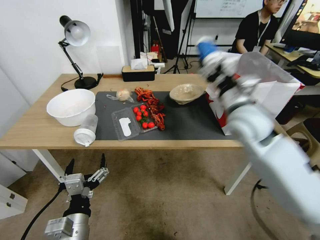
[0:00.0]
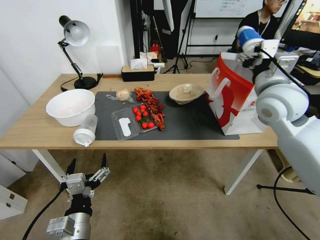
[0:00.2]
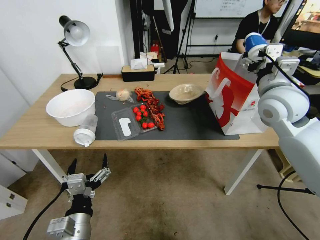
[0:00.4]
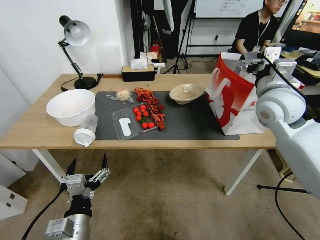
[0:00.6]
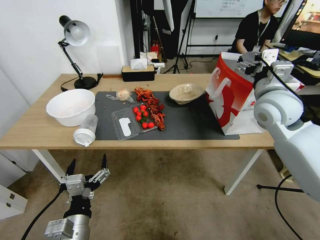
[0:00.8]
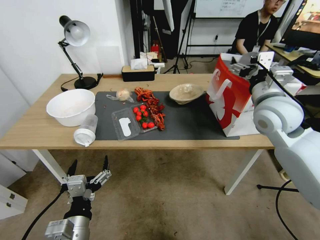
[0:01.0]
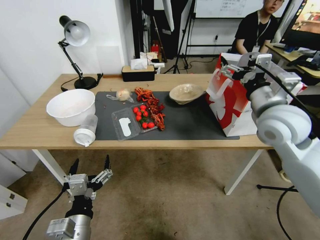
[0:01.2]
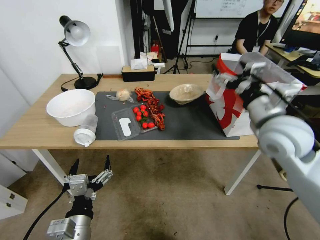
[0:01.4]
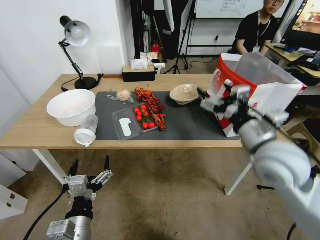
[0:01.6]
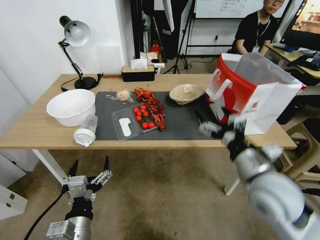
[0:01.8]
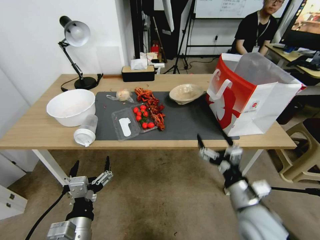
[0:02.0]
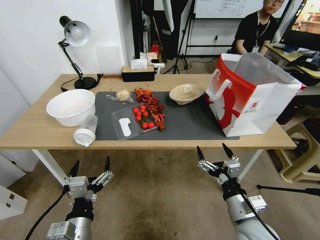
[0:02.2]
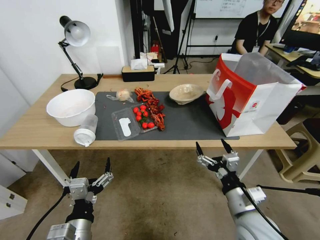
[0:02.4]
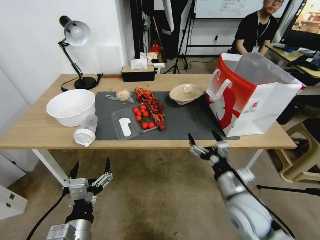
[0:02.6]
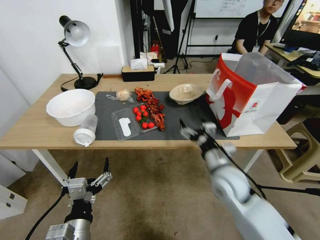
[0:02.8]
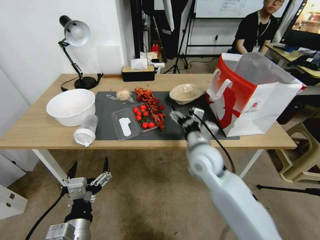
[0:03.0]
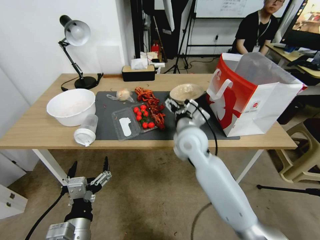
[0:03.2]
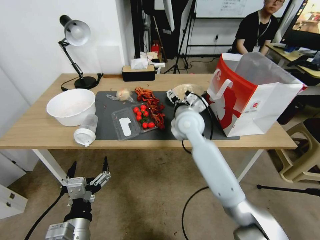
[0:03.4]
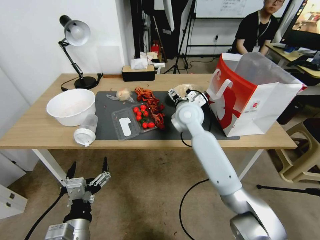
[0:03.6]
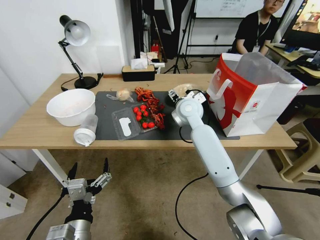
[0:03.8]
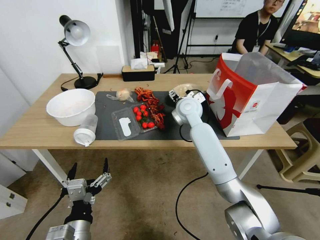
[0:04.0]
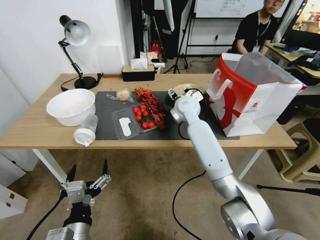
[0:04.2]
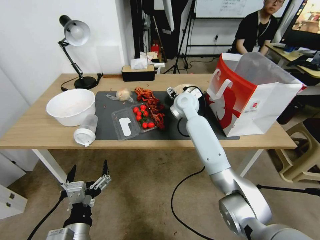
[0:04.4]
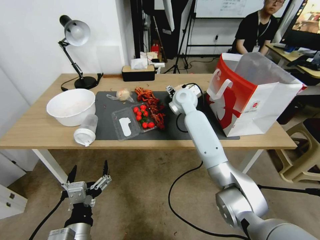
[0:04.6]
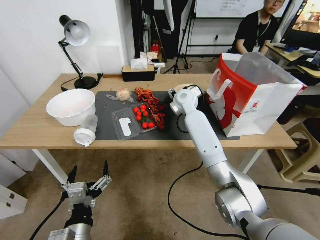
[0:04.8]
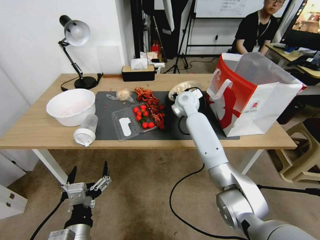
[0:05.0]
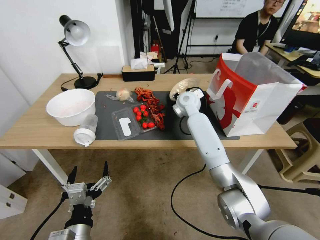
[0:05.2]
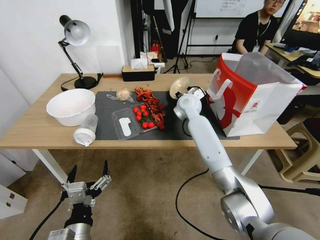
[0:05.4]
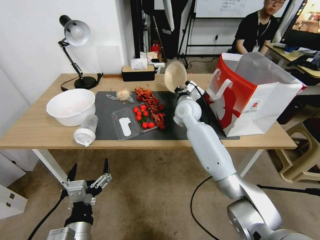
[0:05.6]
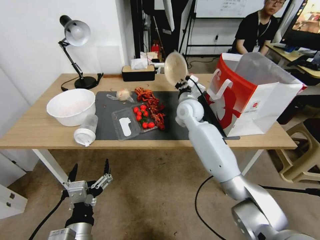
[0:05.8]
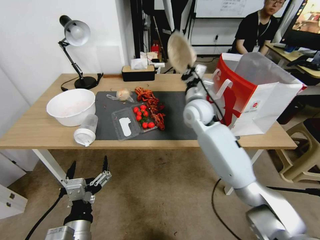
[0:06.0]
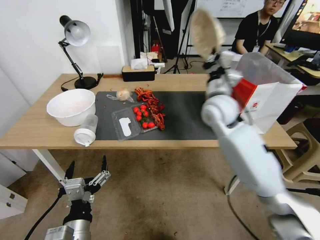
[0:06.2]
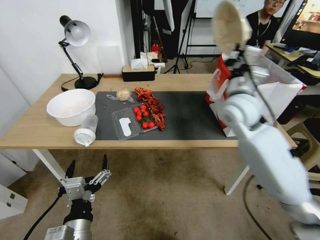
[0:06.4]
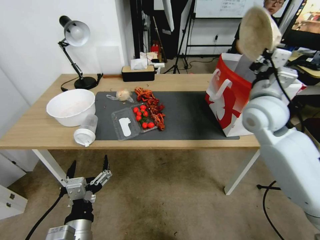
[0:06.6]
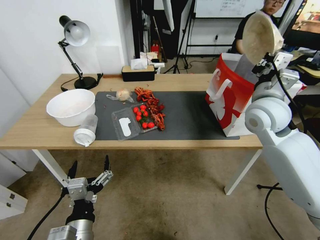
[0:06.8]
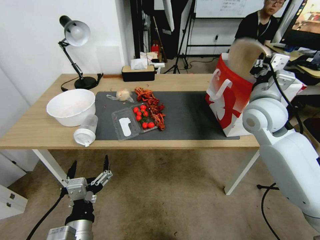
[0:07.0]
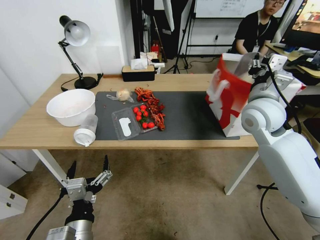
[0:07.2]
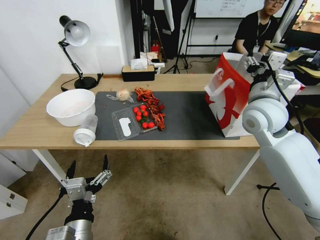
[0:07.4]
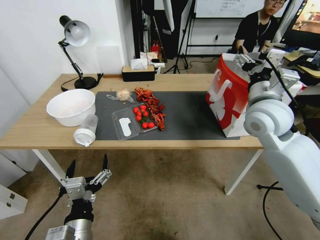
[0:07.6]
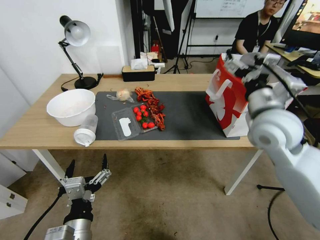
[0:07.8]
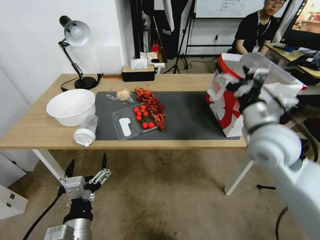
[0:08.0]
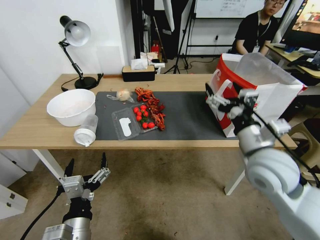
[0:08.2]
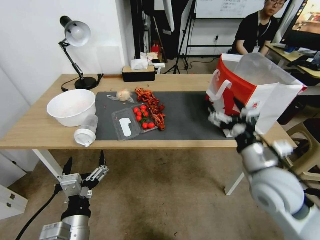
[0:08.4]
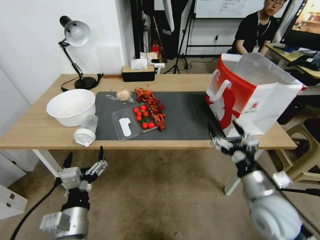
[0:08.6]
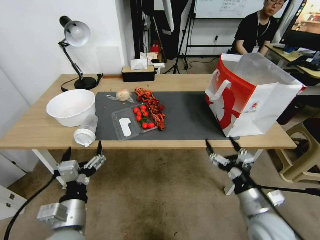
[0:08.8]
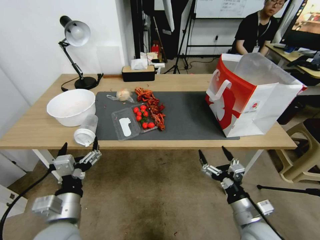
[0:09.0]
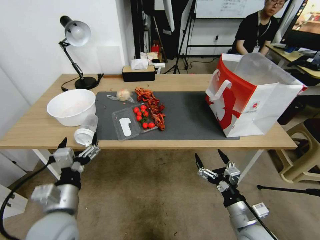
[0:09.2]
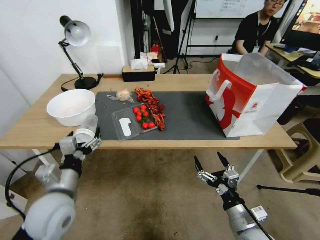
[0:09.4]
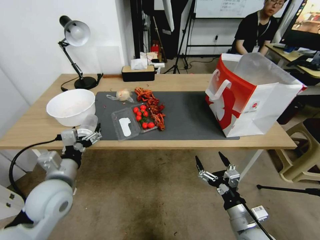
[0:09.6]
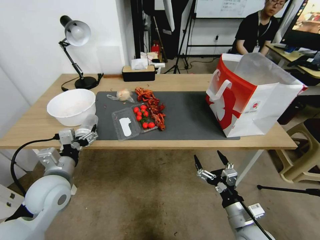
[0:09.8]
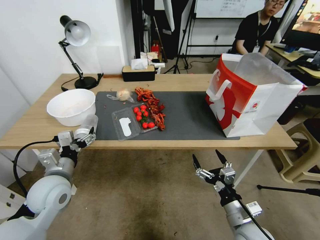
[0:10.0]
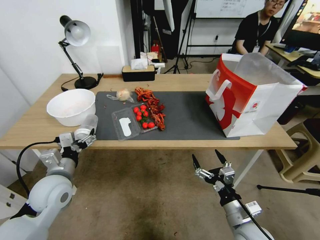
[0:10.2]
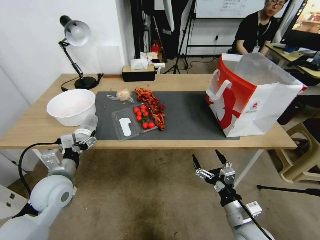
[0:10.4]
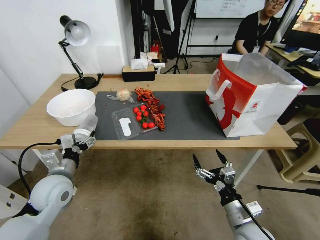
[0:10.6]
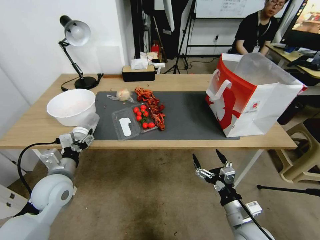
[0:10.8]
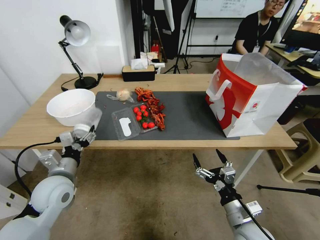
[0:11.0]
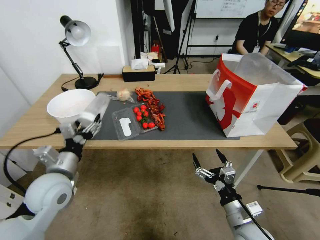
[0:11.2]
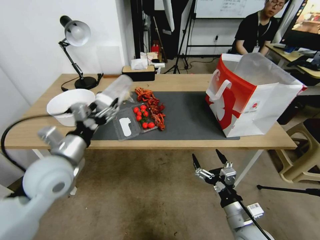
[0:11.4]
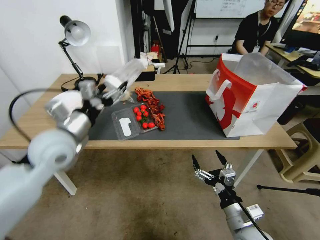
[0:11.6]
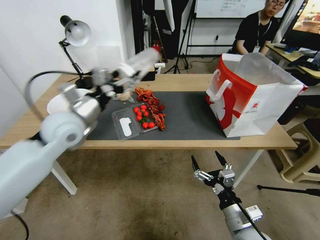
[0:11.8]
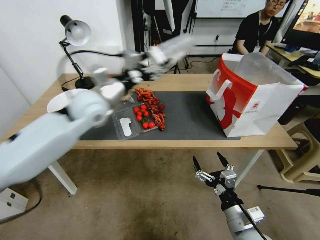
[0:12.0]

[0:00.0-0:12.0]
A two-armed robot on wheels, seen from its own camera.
0:00.0 to 0:01.6: The right gripper heads backward, covering approximately 10 cm.
0:01.6 to 0:03.0: The right gripper moves to the left and downward, about 20 cm.
0:03.0 to 0:04.4: The right gripper shifts about 20 cm forward.
0:04.4 to 0:06.0: The right gripper shifts by roughly 5 cm, and closes.
0:06.0 to 0:07.6: The right gripper travels to the right, backward and upward by approximately 20 cm, and opens up.
0:07.6 to 0:09.0: The right gripper goes roughly 35 cm downward and backward. The left gripper heads forward, covering roughly 5 cm.
0:09.0 to 0:10.4: The left gripper moves forward and to the left, about 15 cm.
0:10.4 to 0:12.0: The left gripper goes about 25 cm upward, forward and to the right.

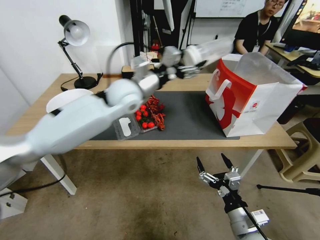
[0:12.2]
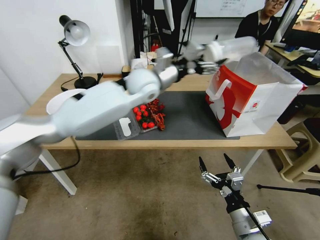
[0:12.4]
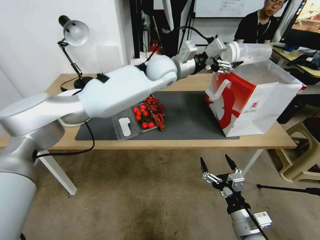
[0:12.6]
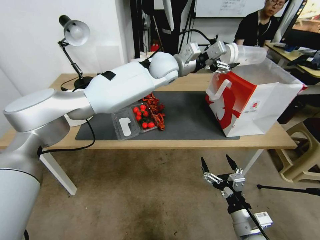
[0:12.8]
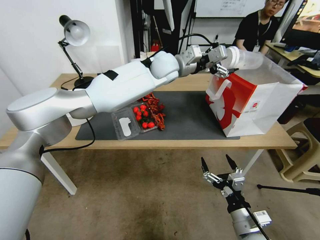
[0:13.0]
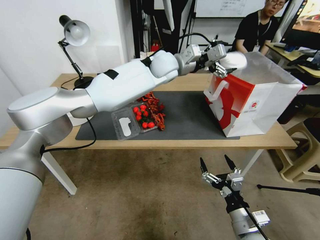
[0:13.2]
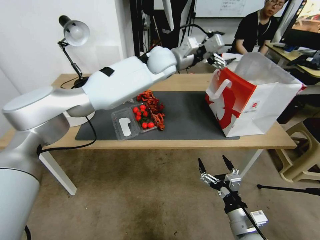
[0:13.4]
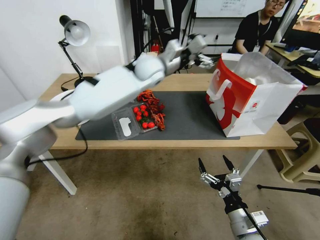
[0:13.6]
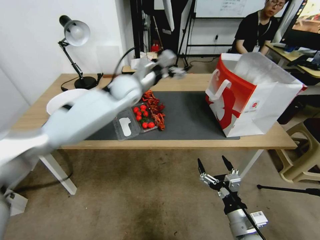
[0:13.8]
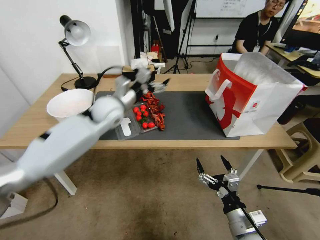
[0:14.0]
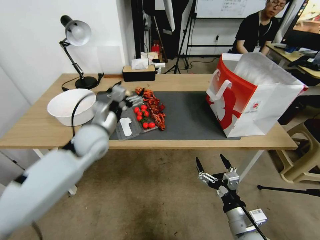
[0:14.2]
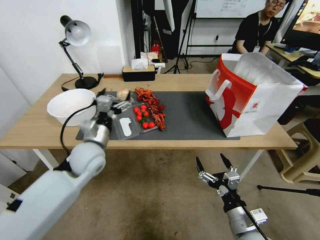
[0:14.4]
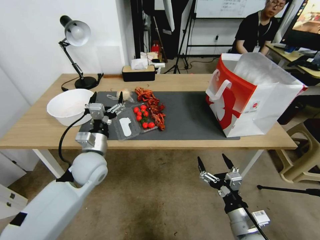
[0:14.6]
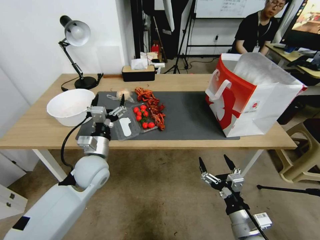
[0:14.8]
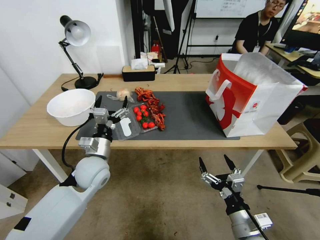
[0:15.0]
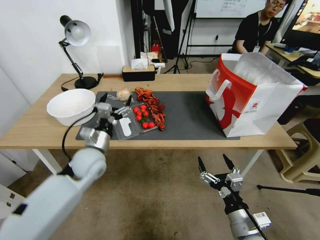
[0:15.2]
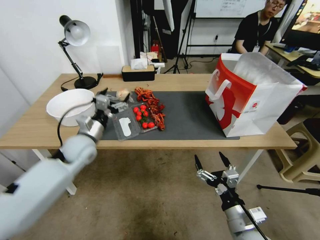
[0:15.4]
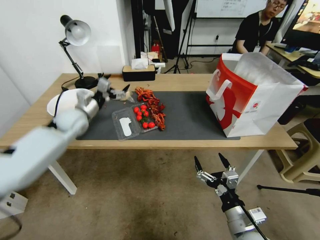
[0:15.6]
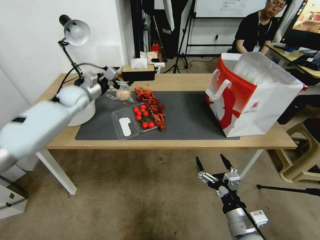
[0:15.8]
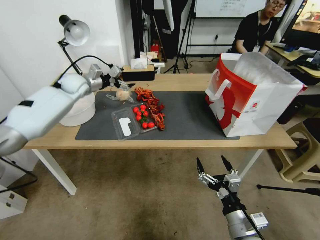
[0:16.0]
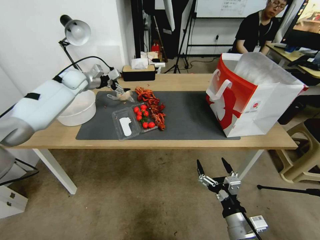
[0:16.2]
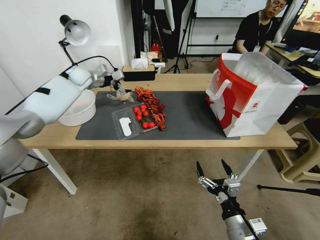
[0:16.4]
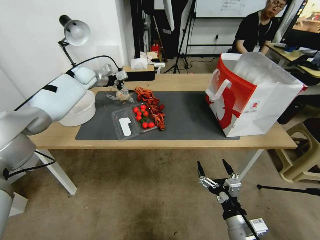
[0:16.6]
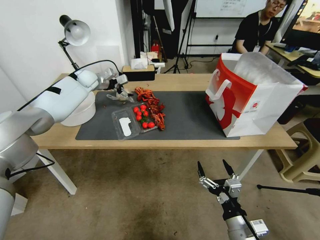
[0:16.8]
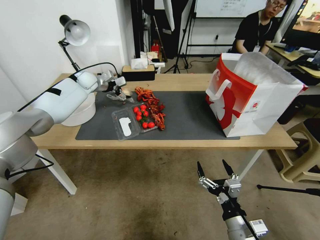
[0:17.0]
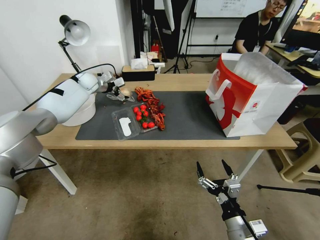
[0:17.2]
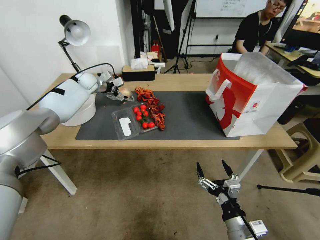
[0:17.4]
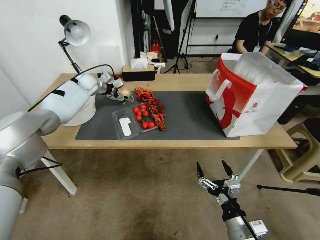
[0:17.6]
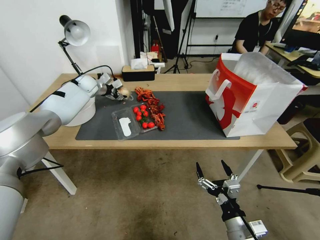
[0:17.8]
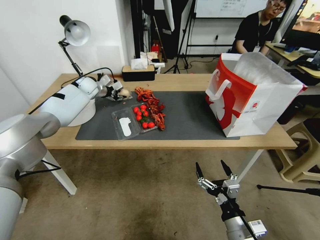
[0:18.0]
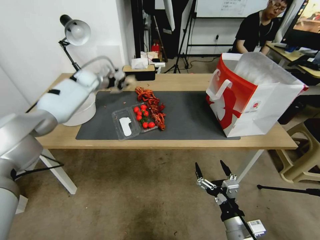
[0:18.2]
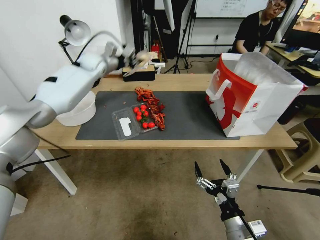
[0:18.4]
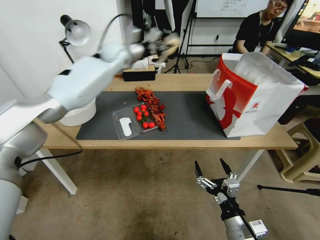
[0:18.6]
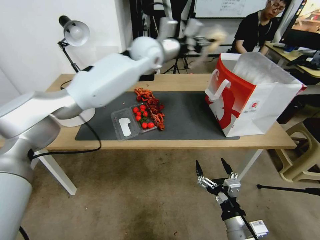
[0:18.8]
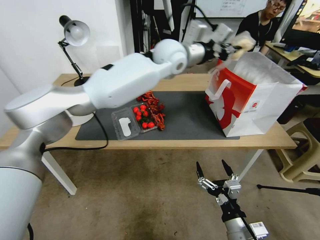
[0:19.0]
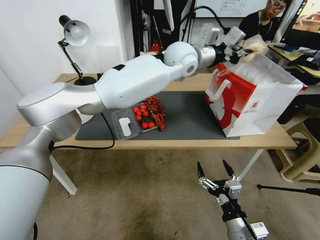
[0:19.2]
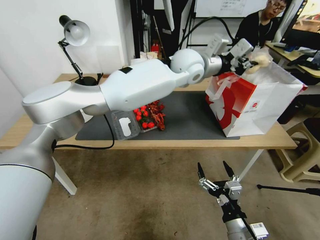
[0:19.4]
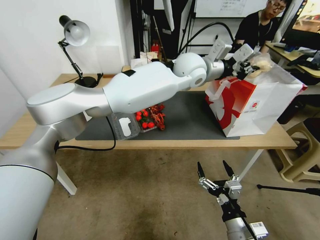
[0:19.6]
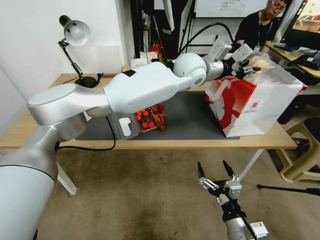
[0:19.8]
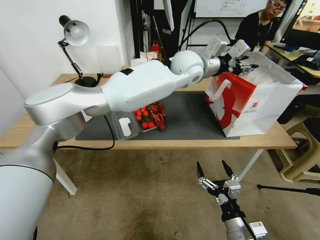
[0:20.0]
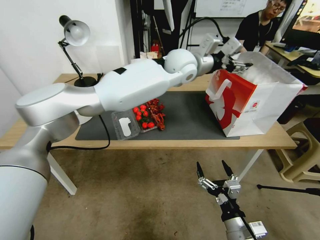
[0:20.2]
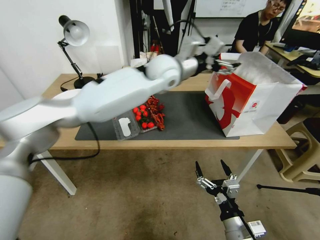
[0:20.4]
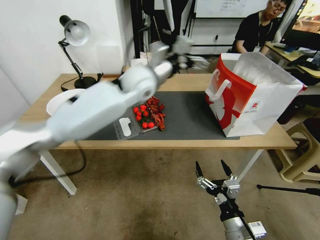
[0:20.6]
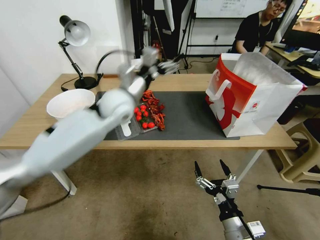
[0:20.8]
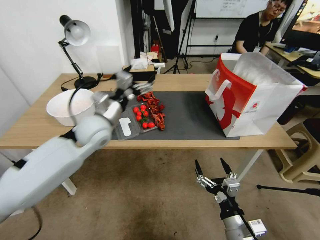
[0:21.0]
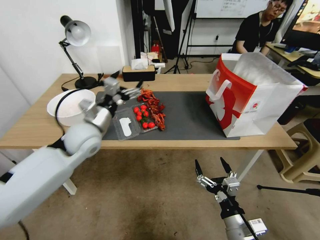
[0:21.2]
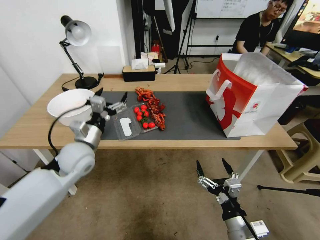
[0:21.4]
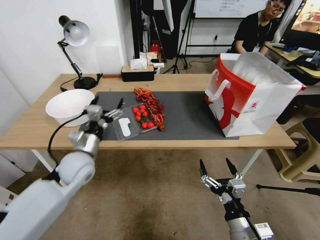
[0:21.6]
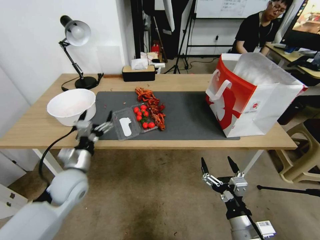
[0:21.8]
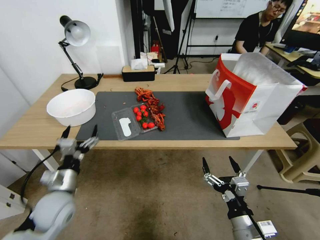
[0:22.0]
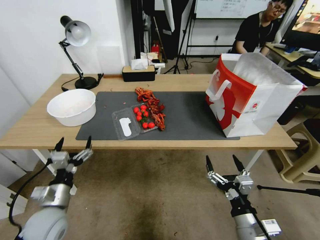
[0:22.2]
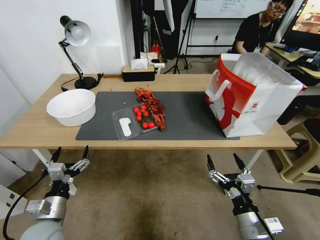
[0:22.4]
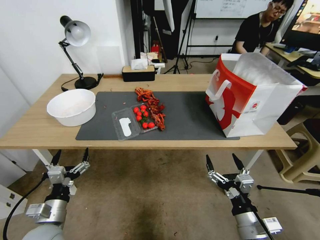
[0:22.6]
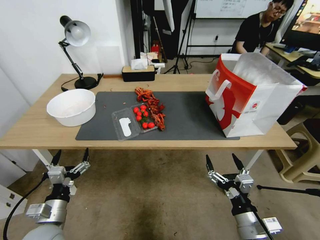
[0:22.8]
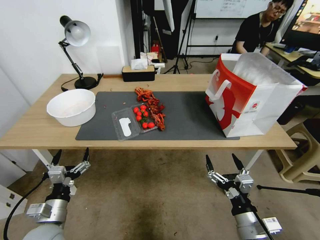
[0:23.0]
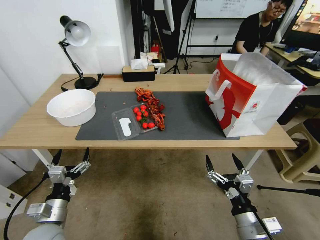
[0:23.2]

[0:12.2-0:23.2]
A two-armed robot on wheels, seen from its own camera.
0:12.2 to 0:13.8: The left gripper heads forward, covering some 5 cm, and reaches some 10 cm to the right, then returns.
0:13.8 to 0:15.4: The left gripper shifts approximately 25 cm to the left, downward and backward.
0:15.4 to 0:17.0: The left gripper is displaced forward by approximately 30 cm.
0:17.0 to 0:18.4: The left gripper moves upward, some 5 cm, and closes.
0:18.4 to 0:20.0: The left gripper heads to the right, covering approximately 35 cm, and opens.
0:20.0 to 0:21.6: The left gripper is displaced to the left, downward and backward by about 40 cm, and opens.
0:21.6 to 0:23.2: The left gripper travels backward and downward by some 20 cm.
